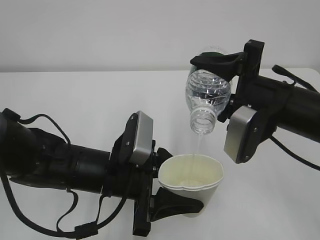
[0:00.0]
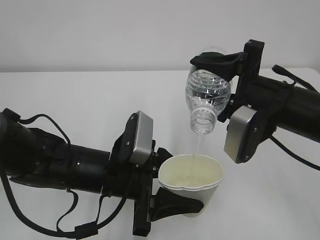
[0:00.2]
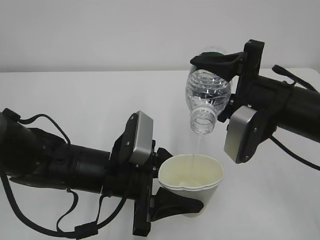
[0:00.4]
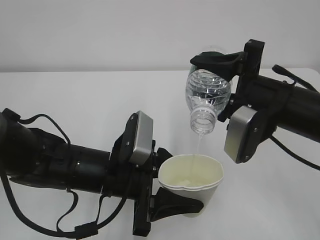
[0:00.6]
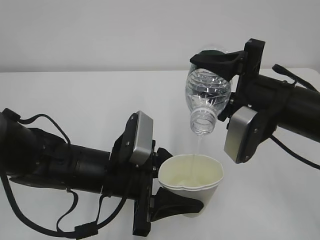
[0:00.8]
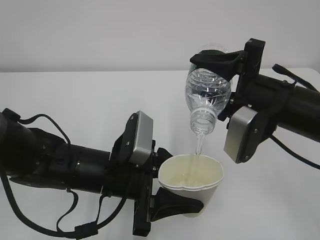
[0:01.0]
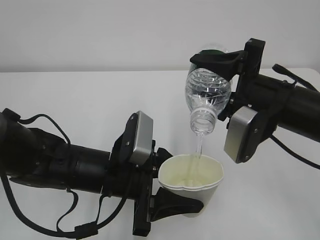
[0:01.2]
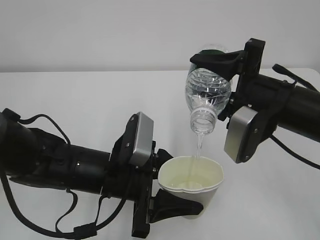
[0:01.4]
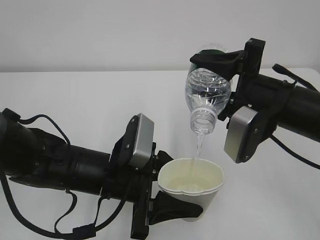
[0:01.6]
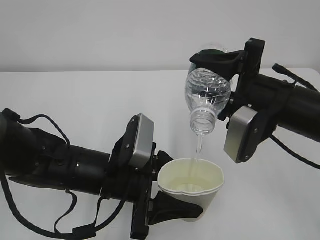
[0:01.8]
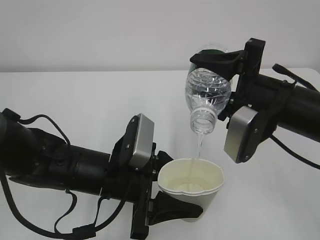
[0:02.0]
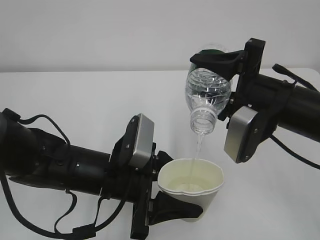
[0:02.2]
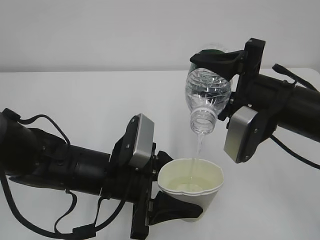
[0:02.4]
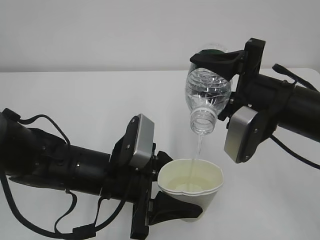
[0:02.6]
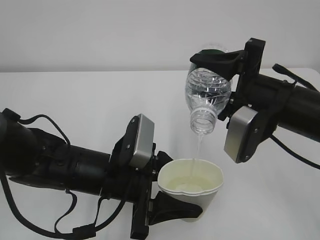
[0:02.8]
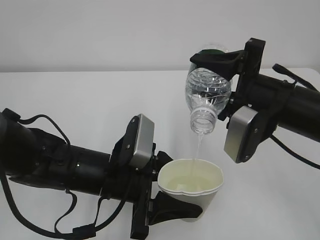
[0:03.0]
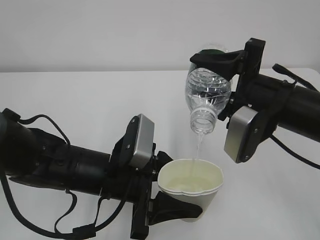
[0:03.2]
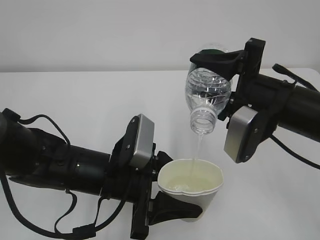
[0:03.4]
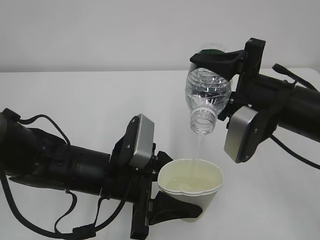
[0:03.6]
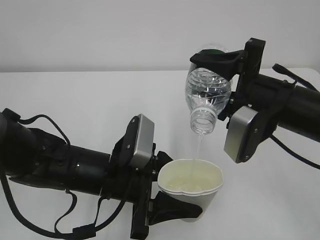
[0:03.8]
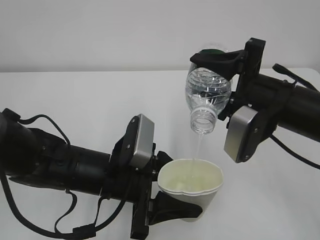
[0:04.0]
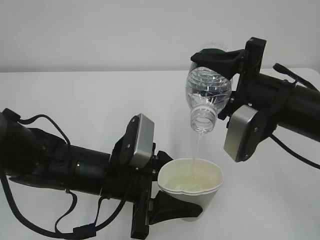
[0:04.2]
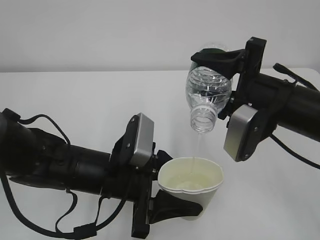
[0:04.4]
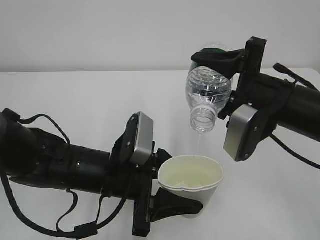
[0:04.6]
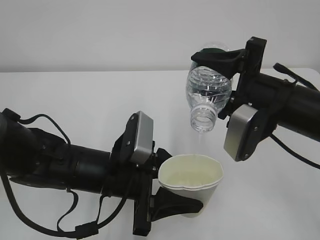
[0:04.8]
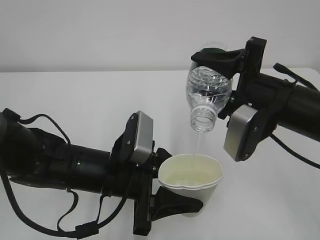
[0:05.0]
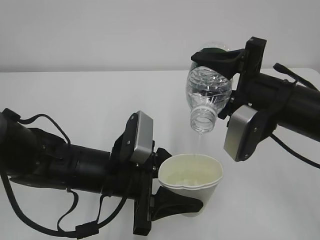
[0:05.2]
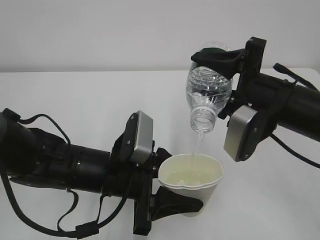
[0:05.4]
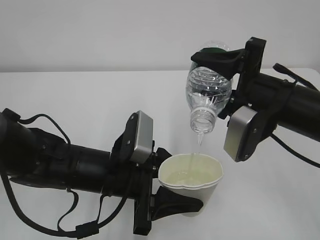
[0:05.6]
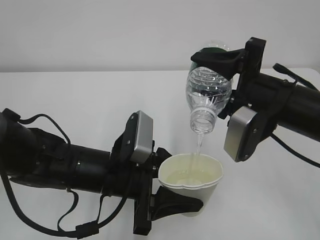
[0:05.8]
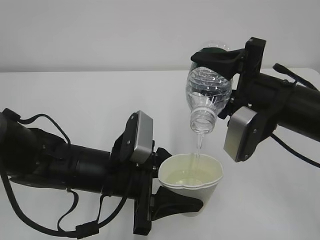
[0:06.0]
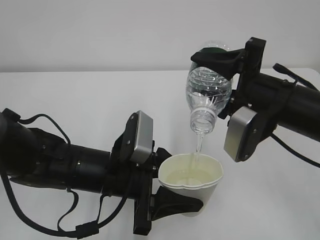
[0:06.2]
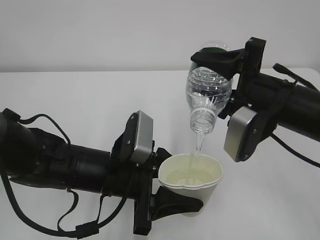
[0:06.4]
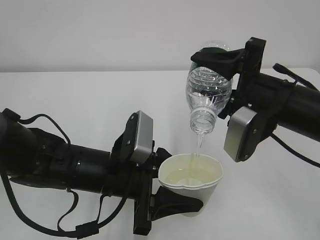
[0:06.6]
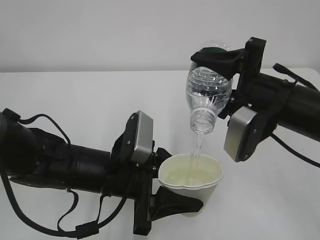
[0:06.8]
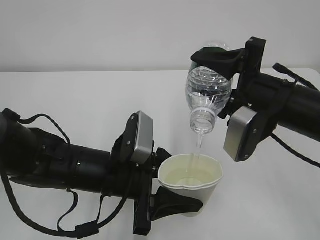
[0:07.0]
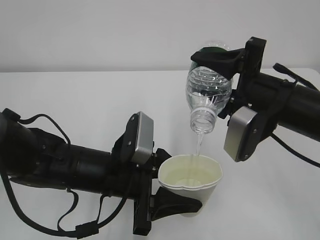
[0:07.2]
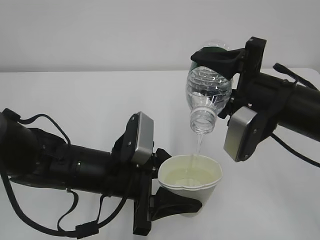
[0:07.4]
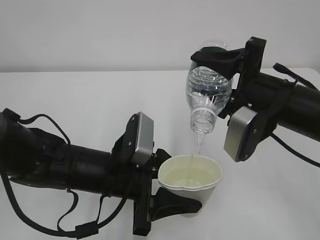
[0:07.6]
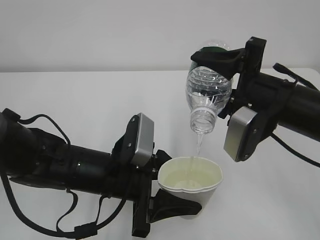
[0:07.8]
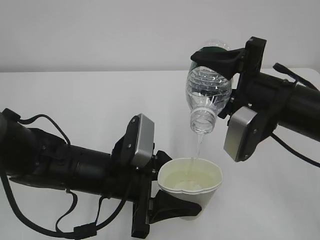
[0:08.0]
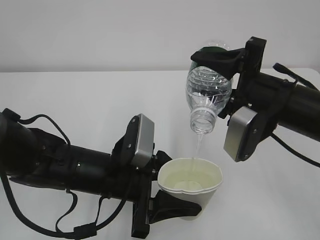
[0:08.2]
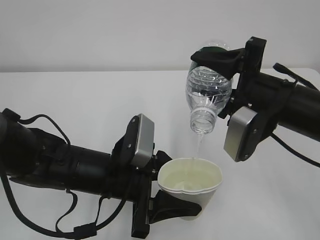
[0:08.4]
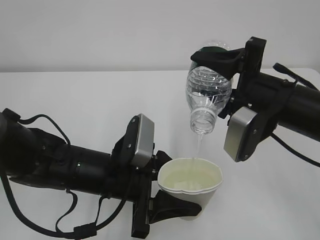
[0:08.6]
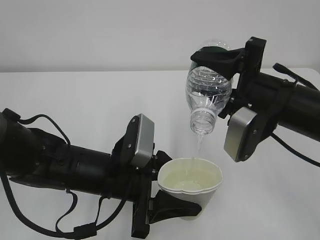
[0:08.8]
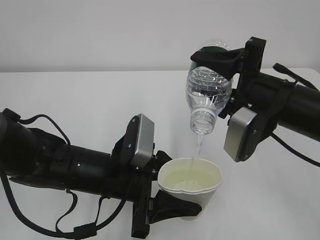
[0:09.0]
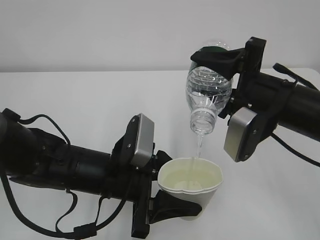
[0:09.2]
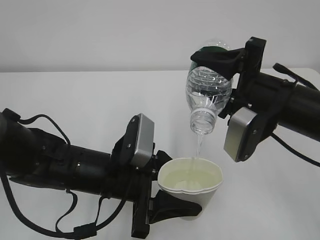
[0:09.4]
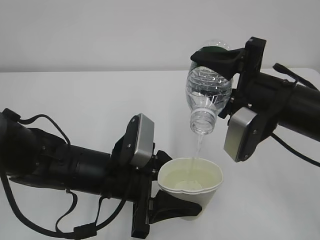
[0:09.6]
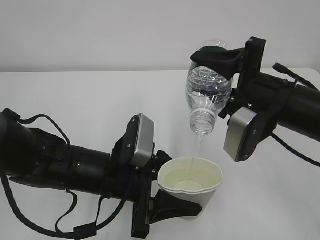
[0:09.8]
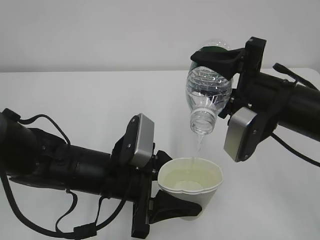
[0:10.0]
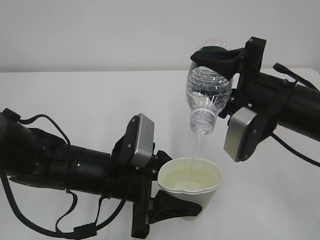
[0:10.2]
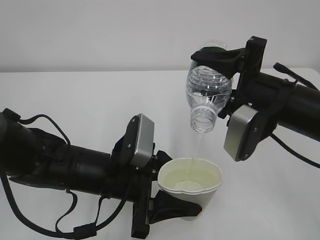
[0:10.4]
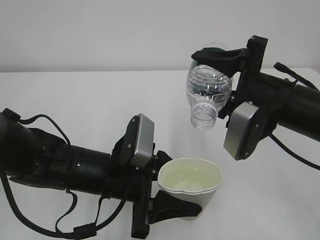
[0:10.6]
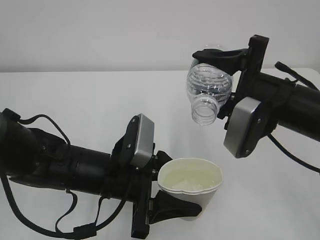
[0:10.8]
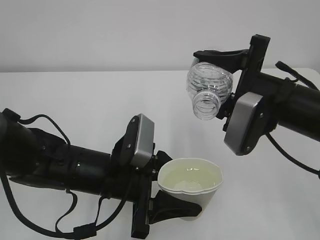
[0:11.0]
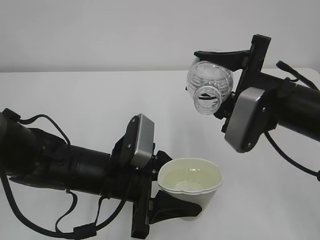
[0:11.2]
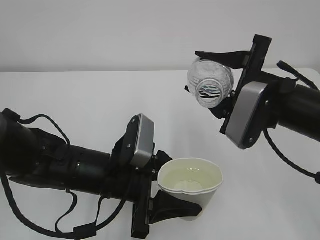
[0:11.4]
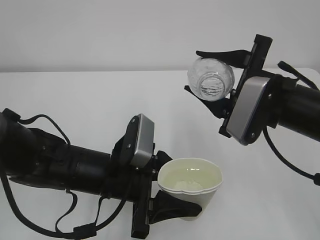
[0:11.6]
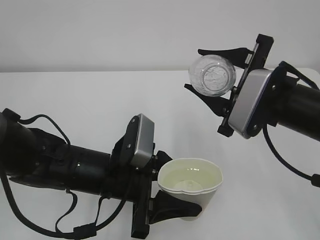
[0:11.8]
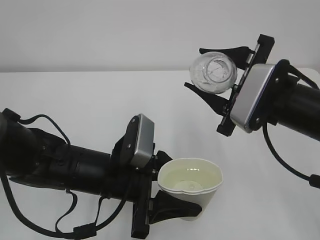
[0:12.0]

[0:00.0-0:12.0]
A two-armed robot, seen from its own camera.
0:00.0 to 0:07.6: Both grippers stay put.
0:07.6 to 0:10.4: Both grippers stay put.

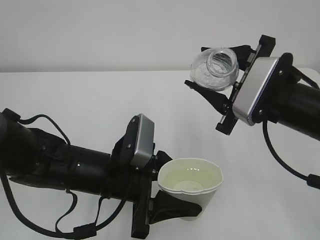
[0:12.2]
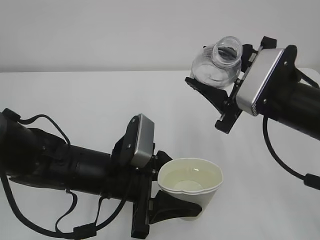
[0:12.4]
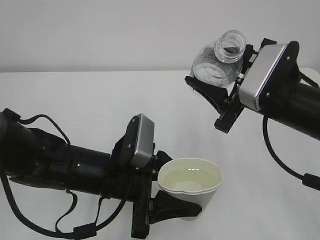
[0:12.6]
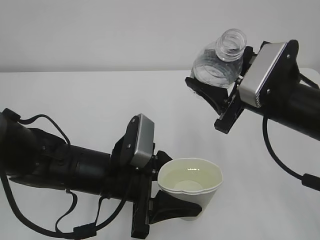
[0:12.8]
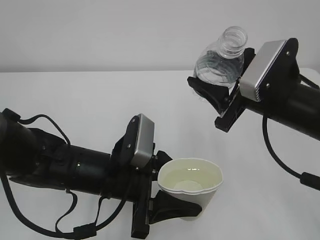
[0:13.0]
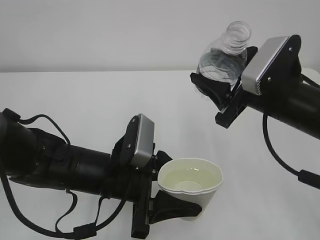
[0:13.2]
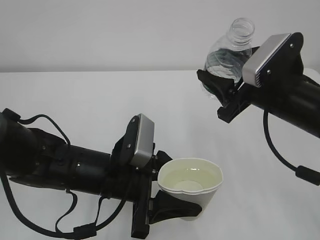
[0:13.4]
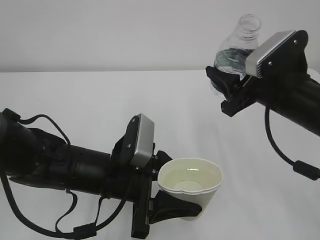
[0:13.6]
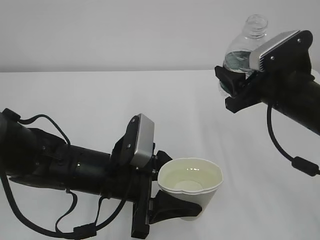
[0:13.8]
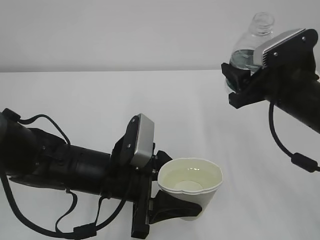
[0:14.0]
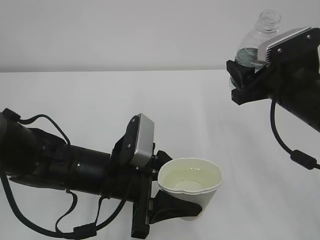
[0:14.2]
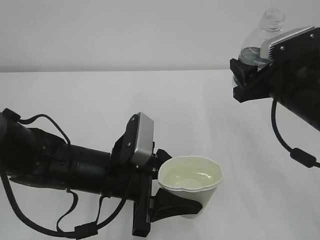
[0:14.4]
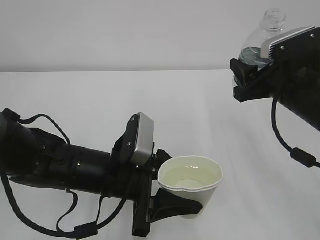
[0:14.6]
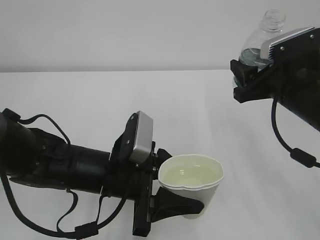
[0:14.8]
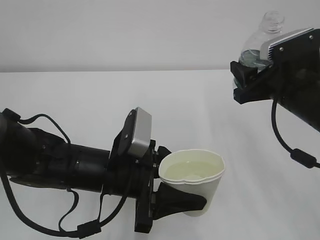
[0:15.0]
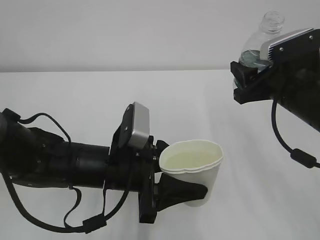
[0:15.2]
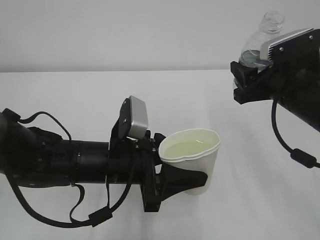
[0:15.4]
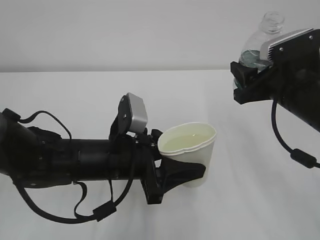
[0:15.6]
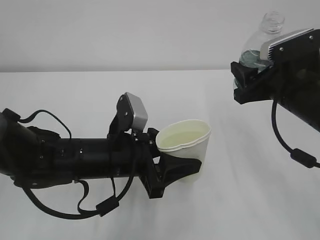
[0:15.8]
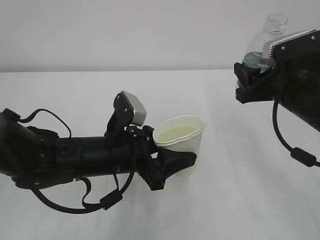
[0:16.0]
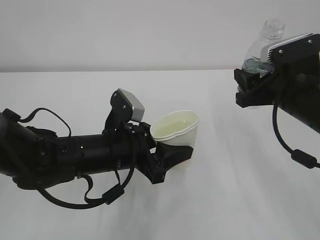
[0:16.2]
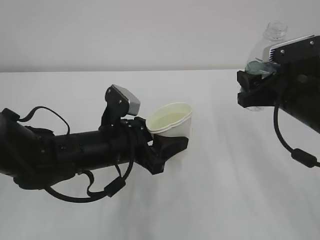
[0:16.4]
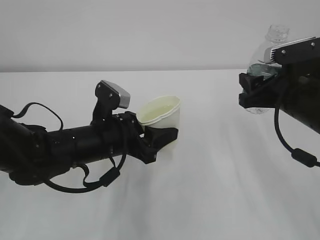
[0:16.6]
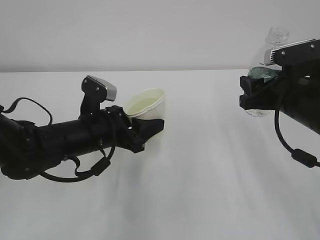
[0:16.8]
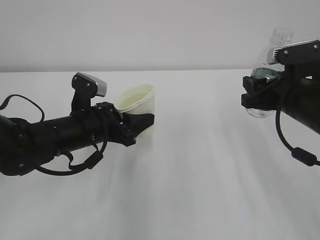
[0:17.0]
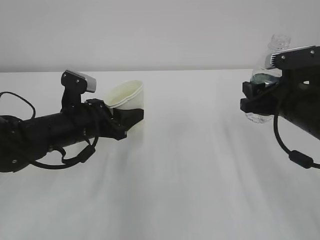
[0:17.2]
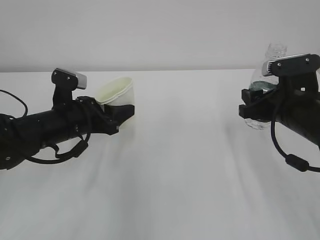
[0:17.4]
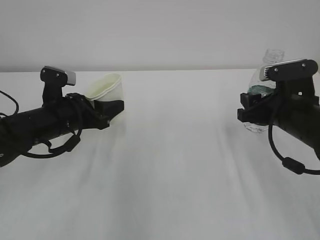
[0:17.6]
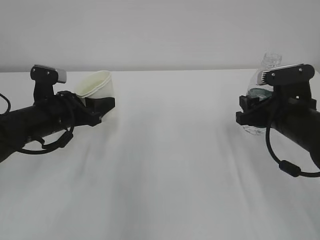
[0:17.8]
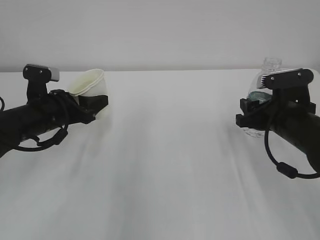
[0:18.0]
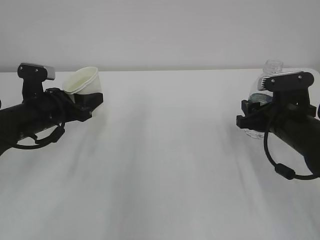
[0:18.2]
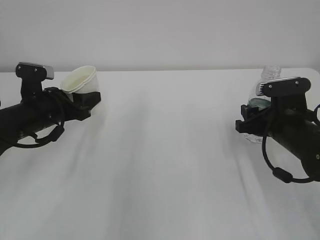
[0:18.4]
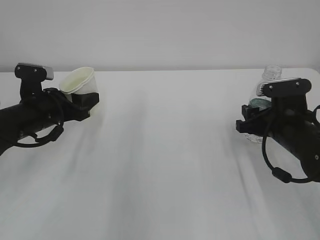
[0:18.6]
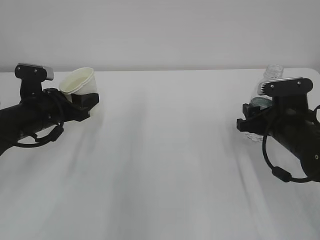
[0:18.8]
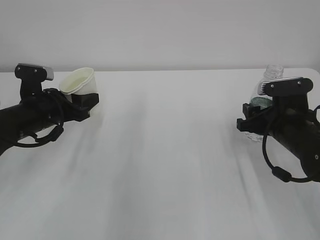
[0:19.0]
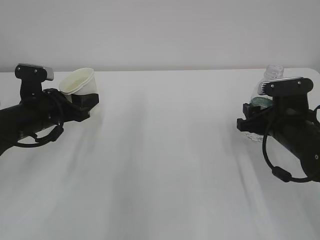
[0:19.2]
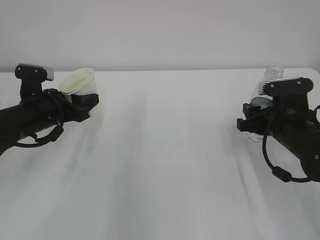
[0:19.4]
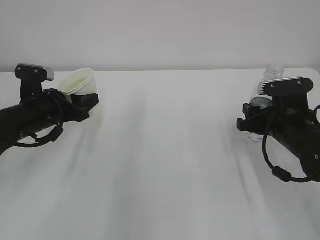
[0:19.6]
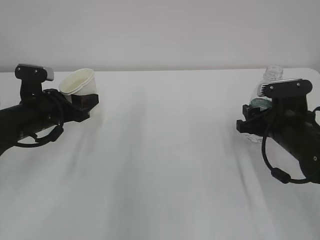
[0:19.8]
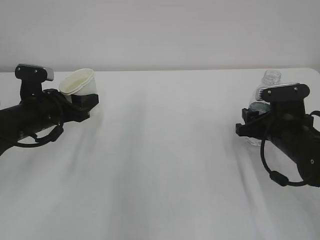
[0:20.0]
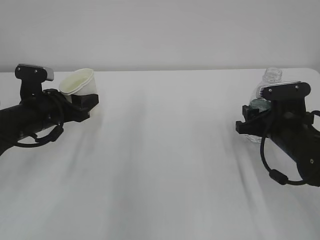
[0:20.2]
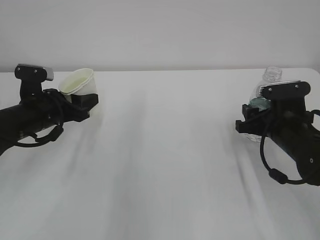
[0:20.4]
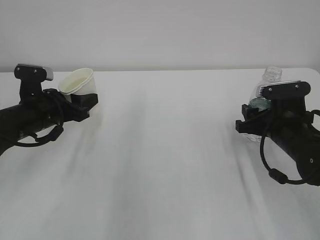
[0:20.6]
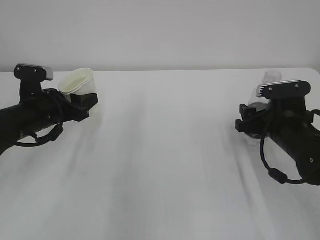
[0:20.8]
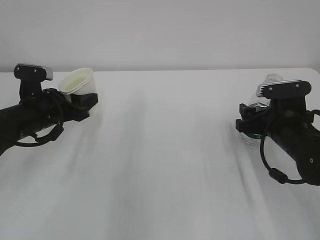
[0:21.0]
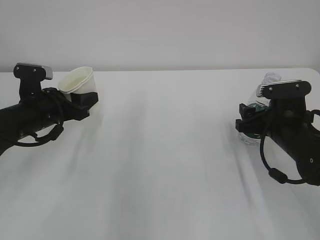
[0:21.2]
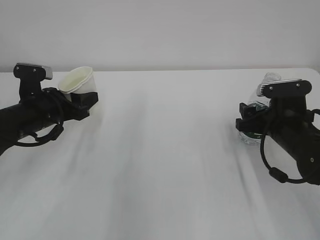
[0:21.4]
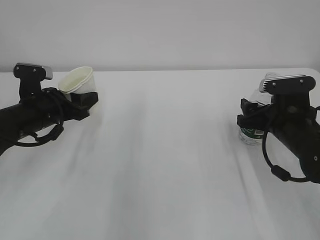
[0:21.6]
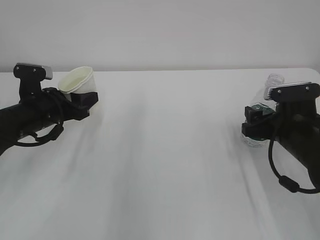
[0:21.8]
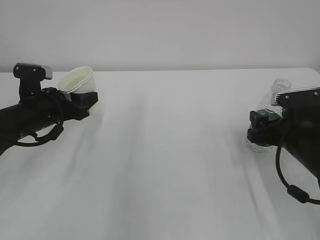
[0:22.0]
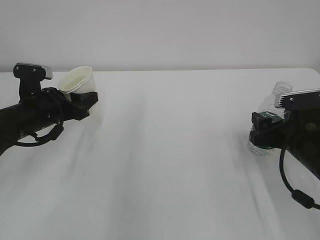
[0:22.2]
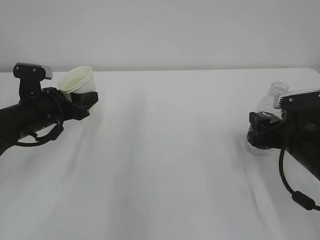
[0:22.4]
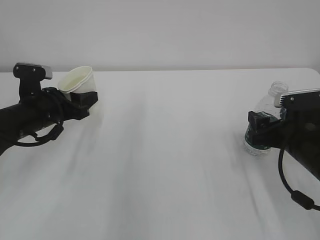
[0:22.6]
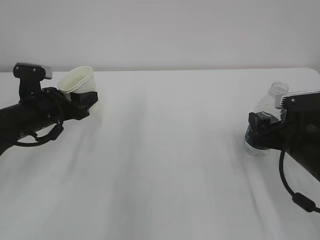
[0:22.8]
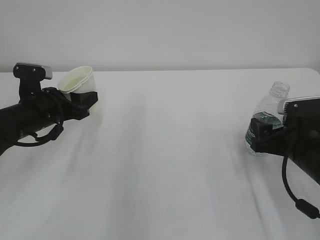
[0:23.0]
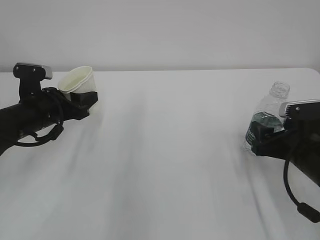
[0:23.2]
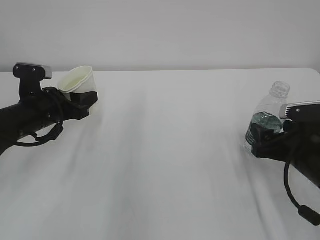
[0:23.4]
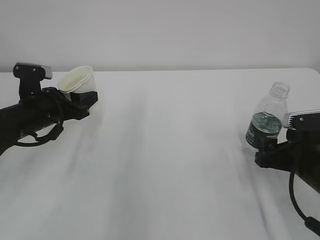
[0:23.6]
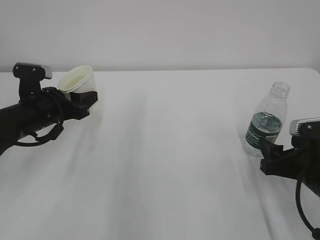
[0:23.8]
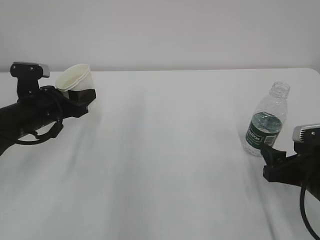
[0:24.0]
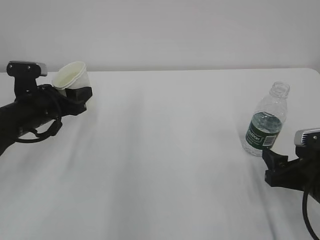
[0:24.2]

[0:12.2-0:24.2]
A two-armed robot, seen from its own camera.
0:13.8 to 0:15.2: The grippers stay close to where they were, moving slightly.
0:15.2 to 0:16.6: The left gripper heads forward, covering about 5 cm.
0:16.6 to 0:18.2: The right gripper shifts about 5 cm downward; the left gripper travels to the left and forward by approximately 15 cm.
0:18.2 to 0:19.8: The grippers make only small movements.
0:19.8 to 0:21.2: The right gripper opens its fingers.
0:21.2 to 0:22.6: The grippers make only small movements.
0:22.6 to 0:24.2: The right gripper is displaced backward by approximately 5 cm.
